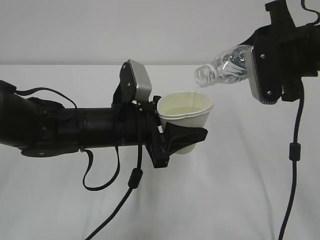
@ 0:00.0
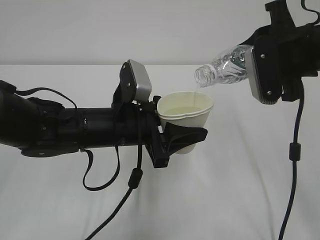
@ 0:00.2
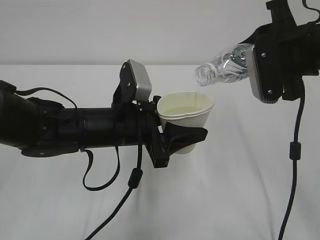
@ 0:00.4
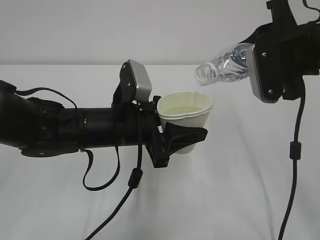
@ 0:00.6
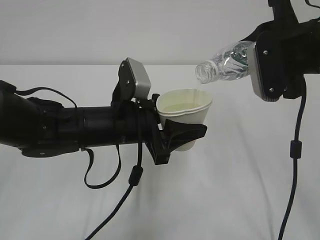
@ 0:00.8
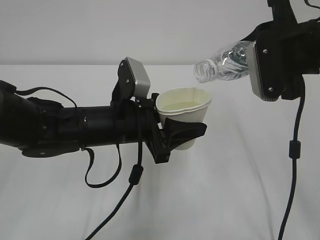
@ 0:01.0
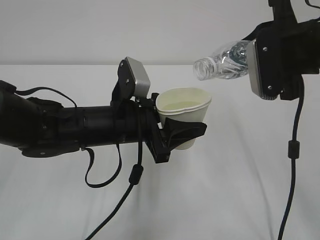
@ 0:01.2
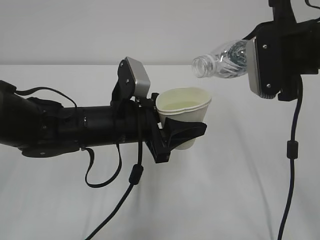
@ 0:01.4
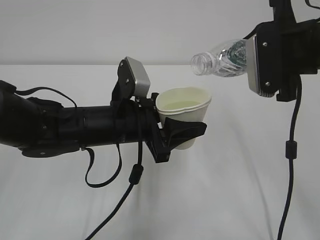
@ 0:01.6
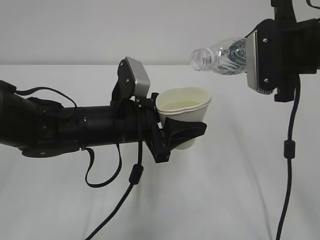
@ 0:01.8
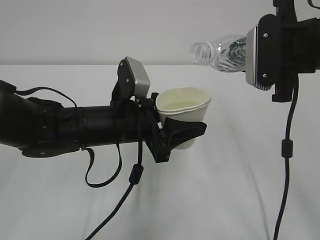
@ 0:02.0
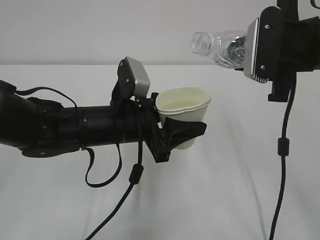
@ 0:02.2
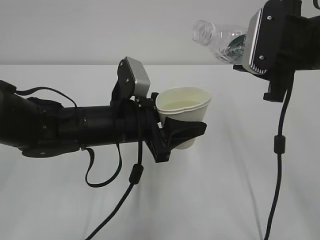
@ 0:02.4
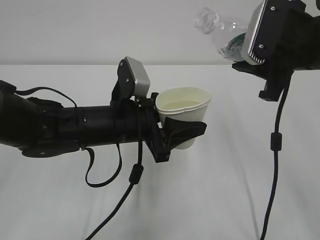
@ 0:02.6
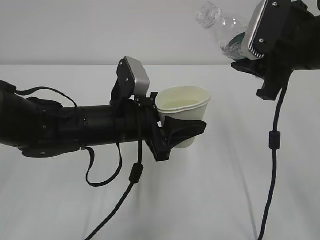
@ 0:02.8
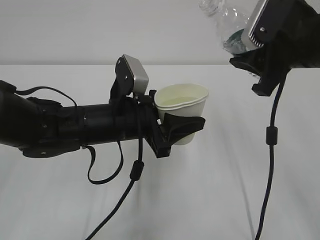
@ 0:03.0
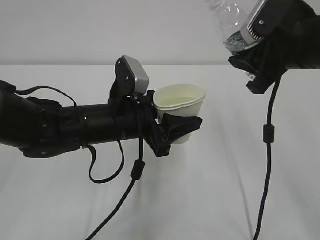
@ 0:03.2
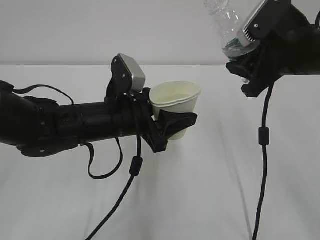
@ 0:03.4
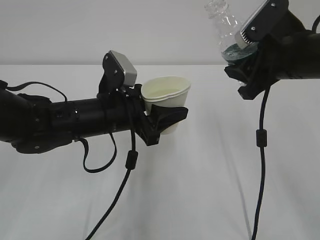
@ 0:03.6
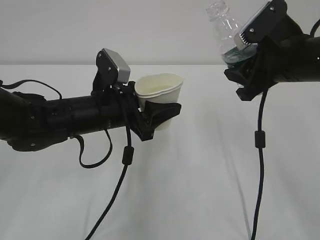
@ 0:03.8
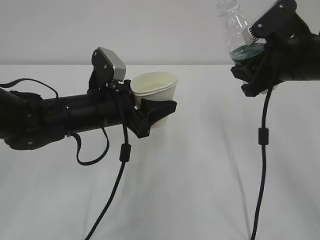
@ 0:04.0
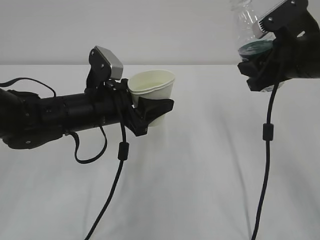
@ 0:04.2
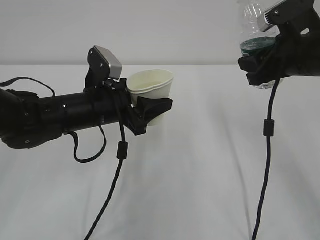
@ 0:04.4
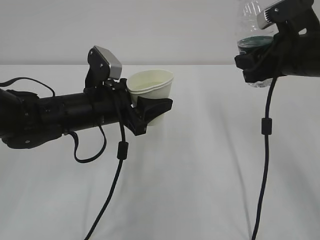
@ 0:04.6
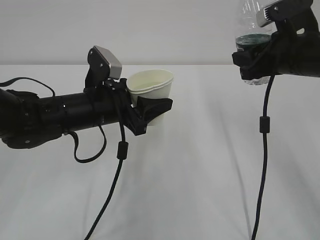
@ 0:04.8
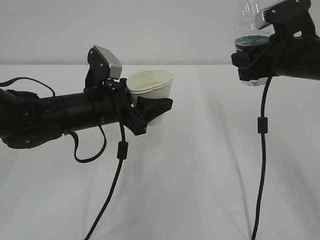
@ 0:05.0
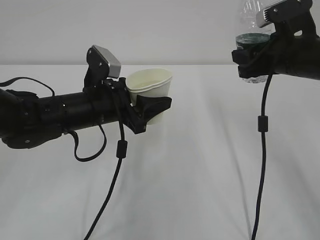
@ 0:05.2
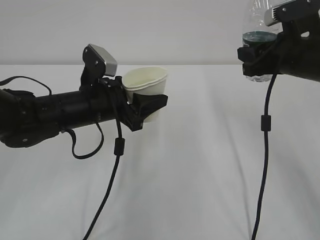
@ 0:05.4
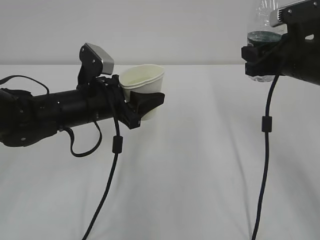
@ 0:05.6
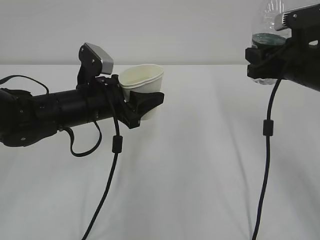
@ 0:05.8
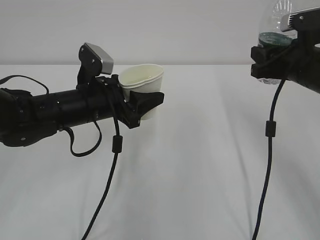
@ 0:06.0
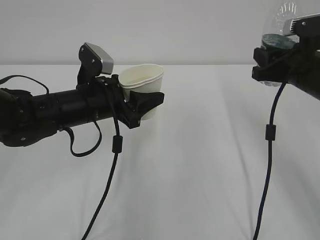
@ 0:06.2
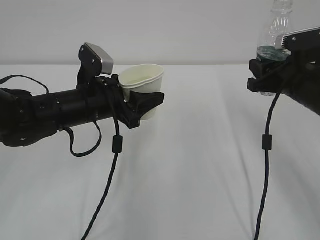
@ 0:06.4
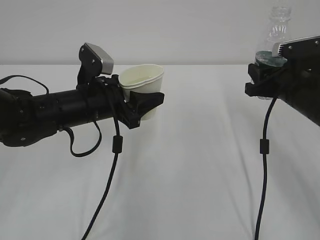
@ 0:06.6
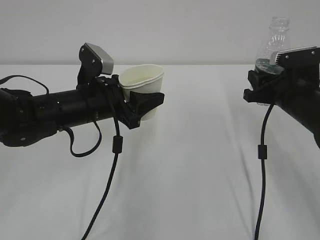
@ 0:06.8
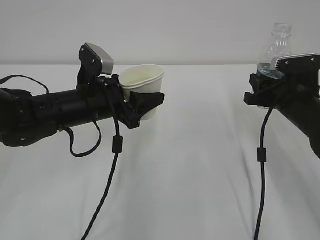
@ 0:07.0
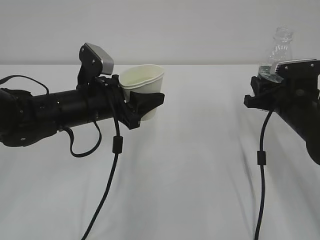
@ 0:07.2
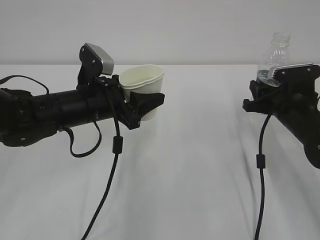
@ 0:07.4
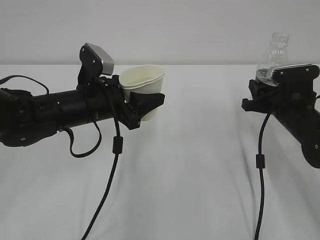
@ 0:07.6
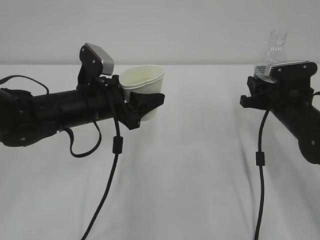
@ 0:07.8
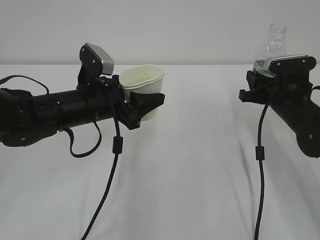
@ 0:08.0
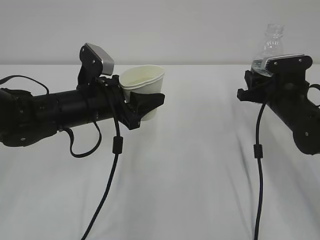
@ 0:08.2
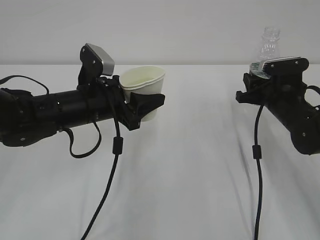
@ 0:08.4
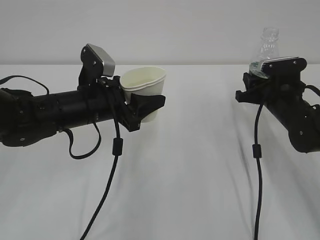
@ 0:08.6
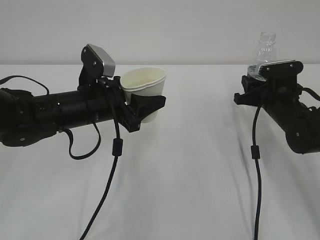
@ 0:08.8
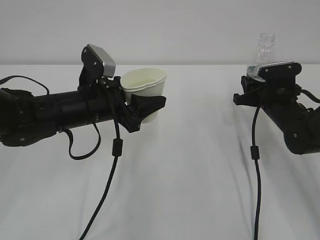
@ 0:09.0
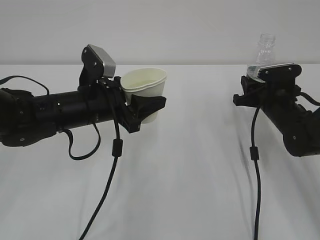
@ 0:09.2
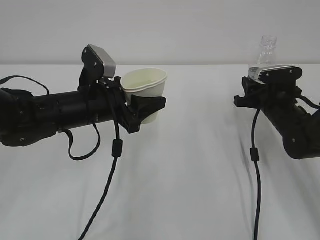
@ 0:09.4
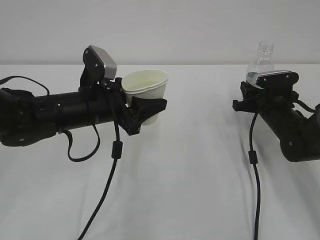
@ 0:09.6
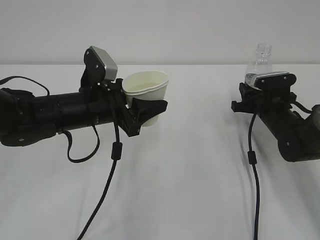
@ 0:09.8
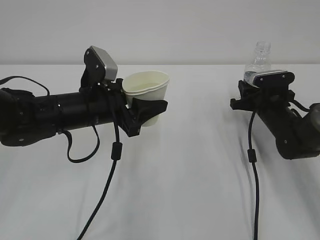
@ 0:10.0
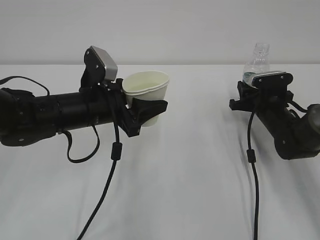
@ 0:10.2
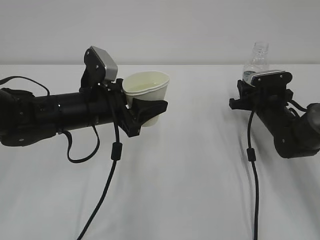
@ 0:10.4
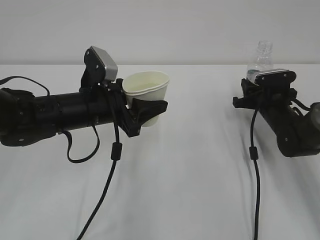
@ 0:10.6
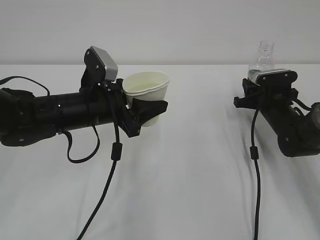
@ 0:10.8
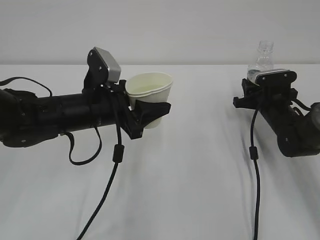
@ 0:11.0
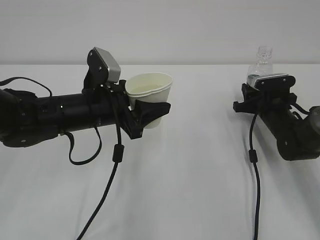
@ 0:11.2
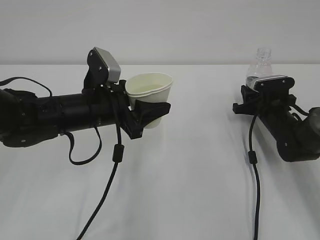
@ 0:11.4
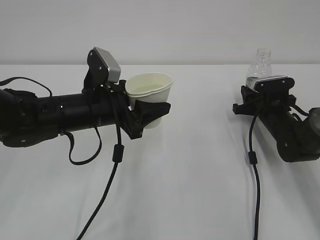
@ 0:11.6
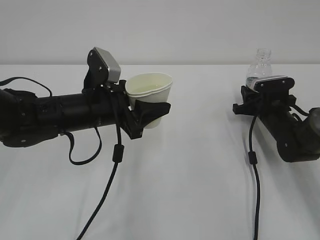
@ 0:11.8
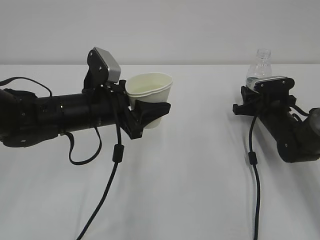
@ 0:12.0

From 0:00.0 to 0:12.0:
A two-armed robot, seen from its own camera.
From 0:00.0 to 0:01.6: There are only small adjustments of the grippers.
From 0:03.0 to 0:04.4: The left gripper ends up approximately 5 cm from where it was; the right gripper changes place by approximately 5 cm.
From 0:06.0 to 0:07.6: The right gripper moves downward, approximately 10 cm.
From 0:07.6 to 0:09.0: The grippers stay close to where they were, moving slightly.
From 0:09.0 to 0:12.0: There are only small adjustments of the grippers.

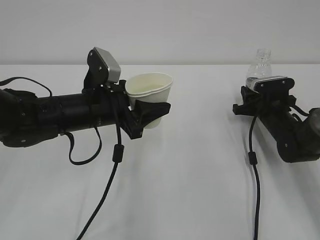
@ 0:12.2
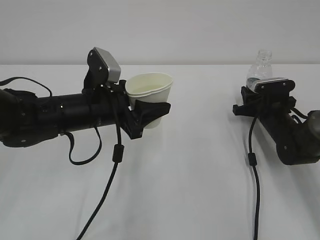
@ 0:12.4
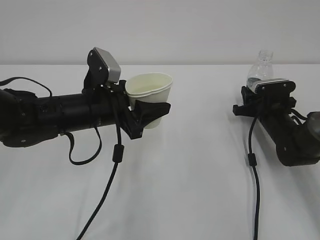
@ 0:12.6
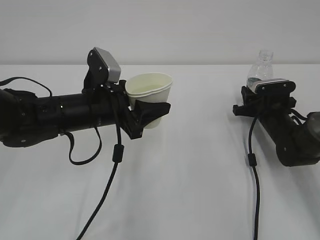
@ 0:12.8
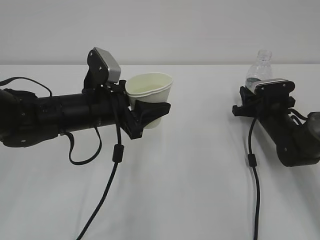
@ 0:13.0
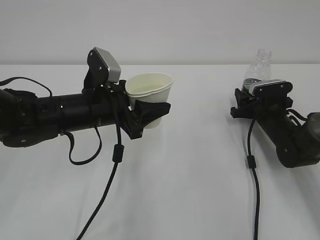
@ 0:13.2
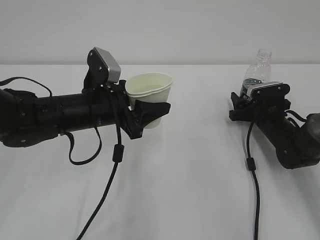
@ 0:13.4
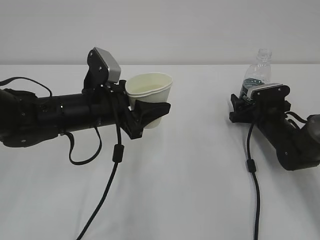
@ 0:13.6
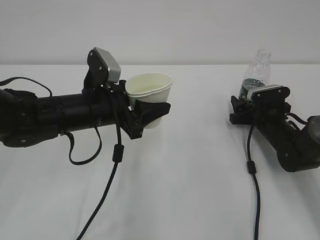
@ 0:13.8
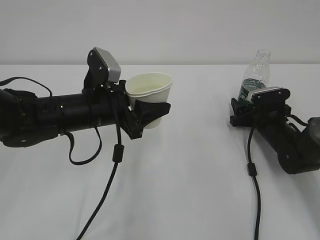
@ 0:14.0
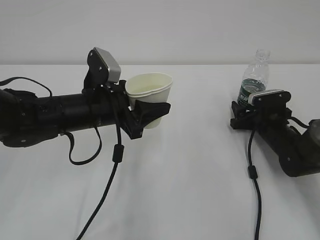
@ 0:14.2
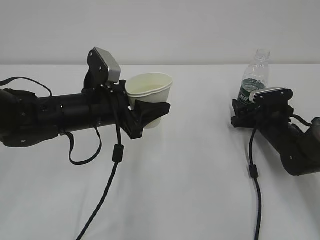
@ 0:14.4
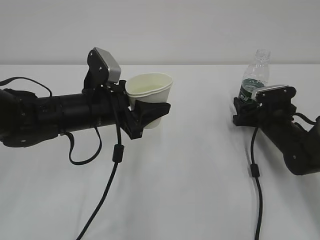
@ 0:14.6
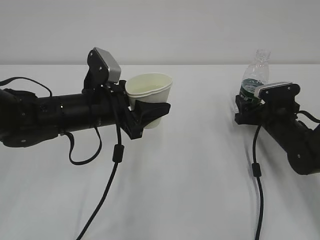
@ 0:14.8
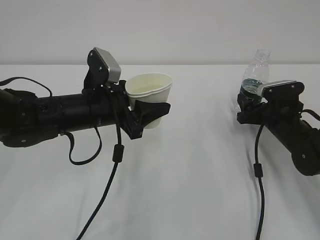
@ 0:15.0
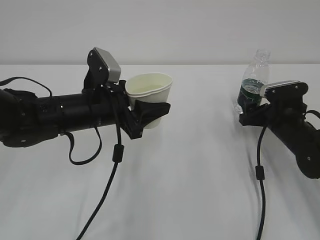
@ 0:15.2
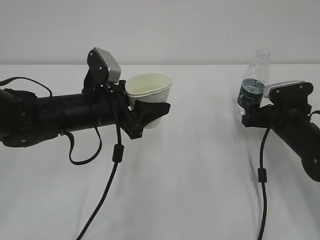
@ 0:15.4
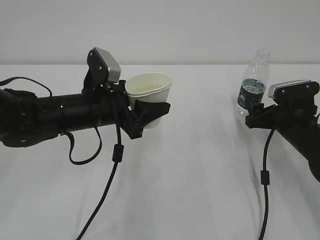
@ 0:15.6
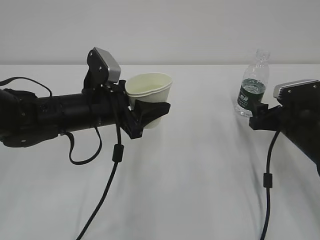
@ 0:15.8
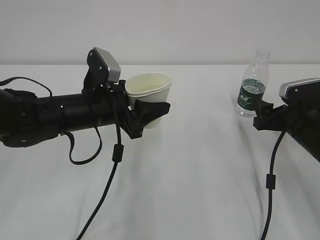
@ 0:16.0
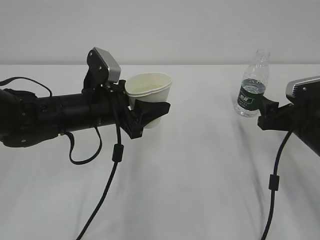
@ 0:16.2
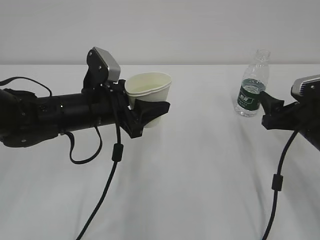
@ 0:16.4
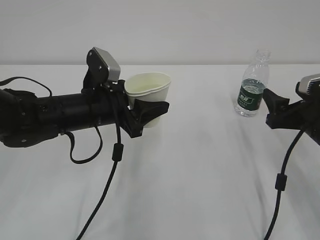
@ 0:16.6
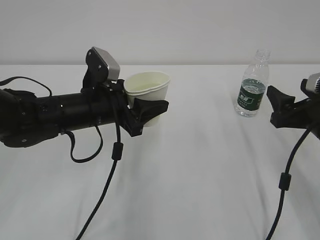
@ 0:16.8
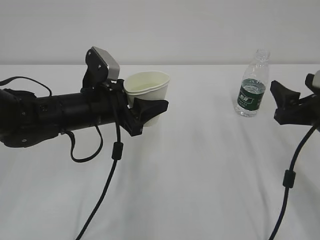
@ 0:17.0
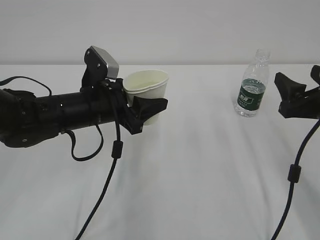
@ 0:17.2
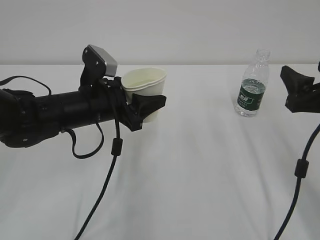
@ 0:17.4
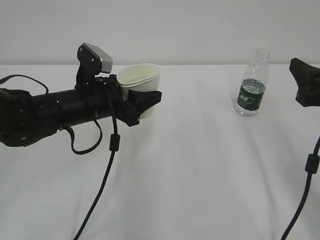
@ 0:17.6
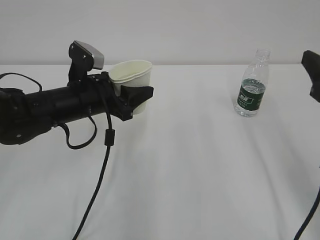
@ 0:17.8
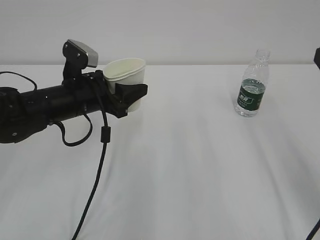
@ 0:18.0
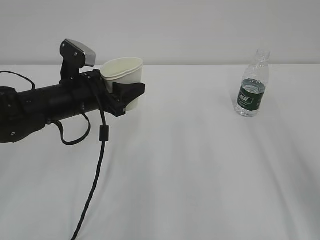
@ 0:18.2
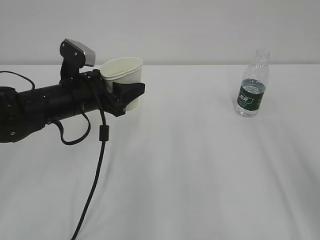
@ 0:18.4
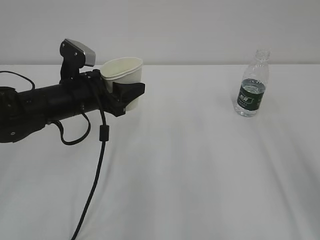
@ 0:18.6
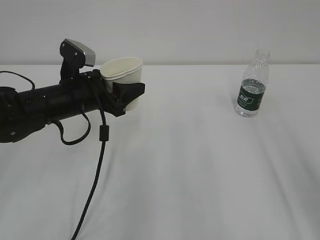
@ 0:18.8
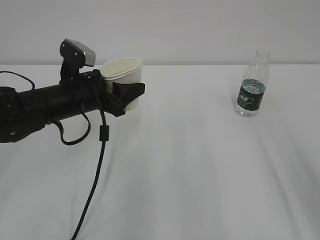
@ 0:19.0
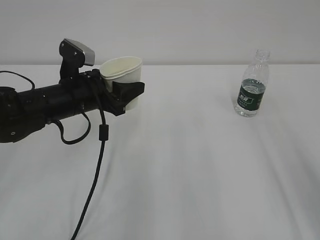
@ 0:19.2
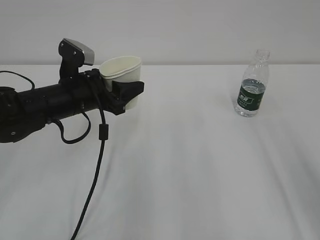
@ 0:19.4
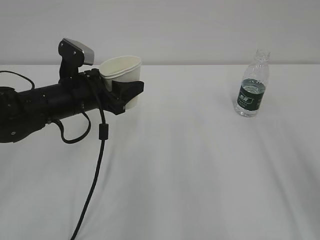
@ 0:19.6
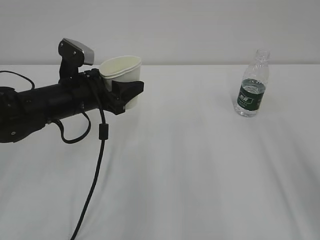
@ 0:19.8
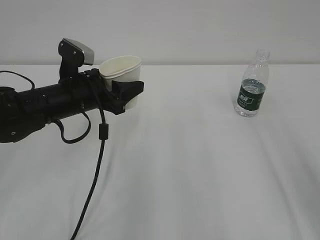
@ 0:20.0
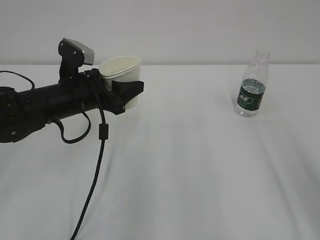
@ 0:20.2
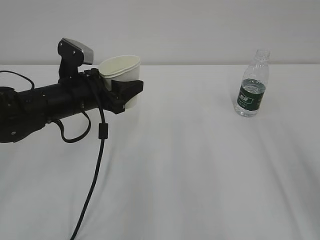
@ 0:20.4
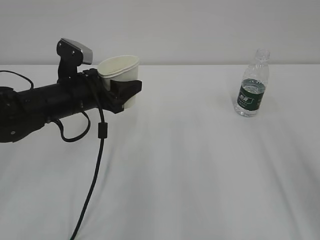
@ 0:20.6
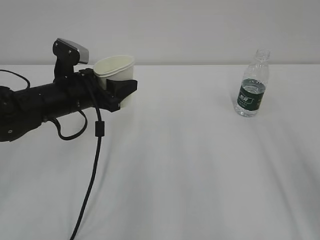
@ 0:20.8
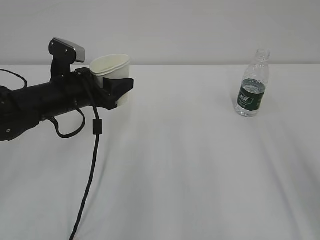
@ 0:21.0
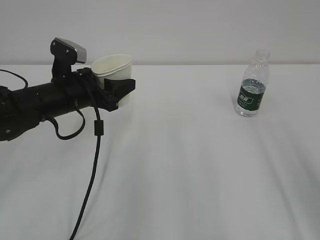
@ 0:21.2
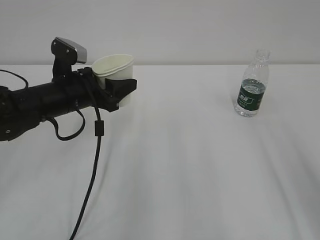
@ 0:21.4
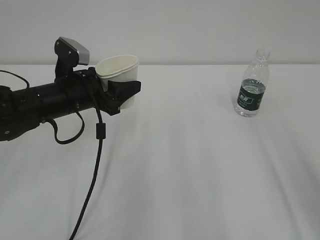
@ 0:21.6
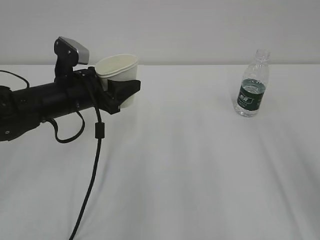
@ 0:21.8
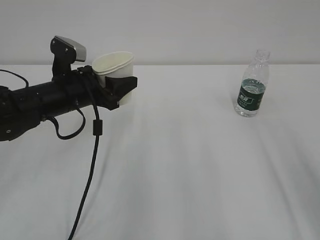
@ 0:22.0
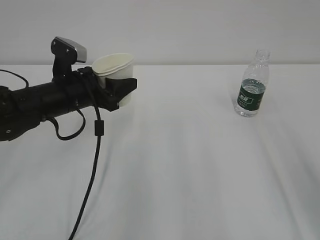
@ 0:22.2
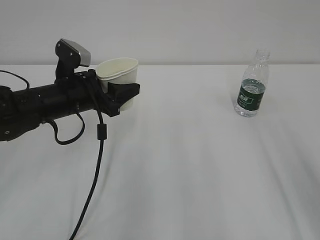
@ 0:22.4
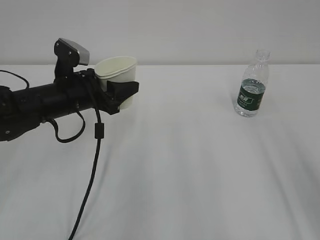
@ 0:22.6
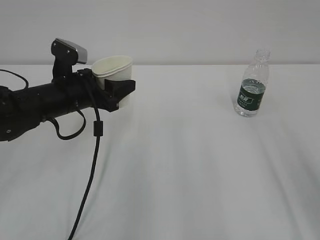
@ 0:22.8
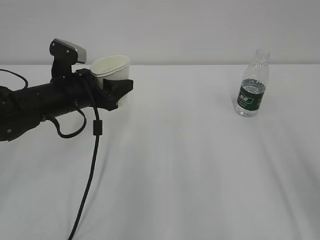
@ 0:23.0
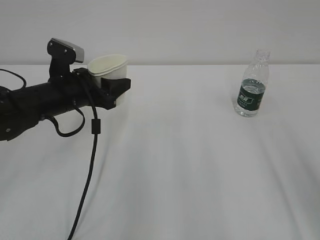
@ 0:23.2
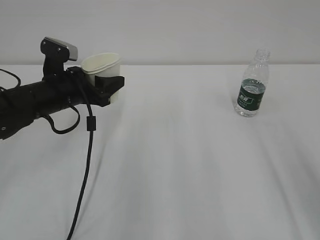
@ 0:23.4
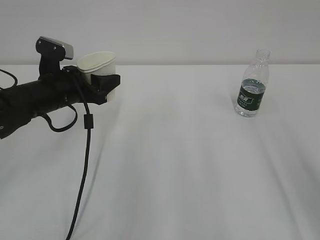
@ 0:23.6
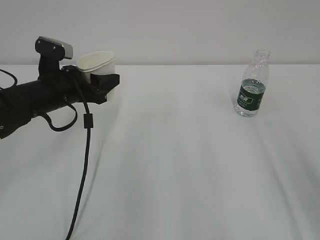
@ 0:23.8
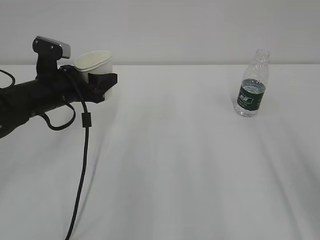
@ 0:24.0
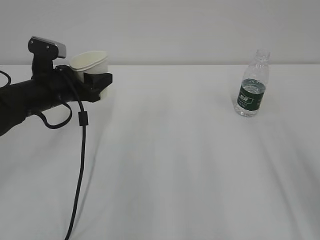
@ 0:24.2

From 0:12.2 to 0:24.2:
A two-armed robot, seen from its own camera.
From 0:12.2 to 0:13.8: The right gripper opens its fingers.
From 0:13.8 to 0:15.2: The right gripper changes place by roughly 5 cm.
From 0:15.2 to 0:16.6: The right gripper heads backward and upward, covering roughly 10 cm.
From 0:16.6 to 0:18.2: The right gripper heads upward and backward, covering some 15 cm.
From 0:18.2 to 0:24.2: The grippers stay close to where they were, moving slightly.
